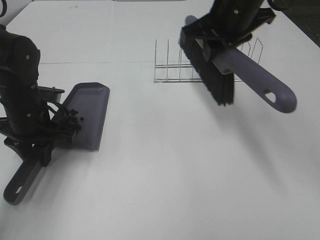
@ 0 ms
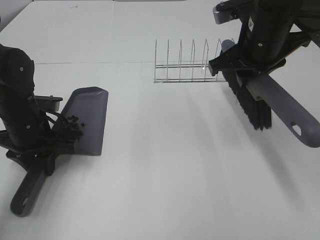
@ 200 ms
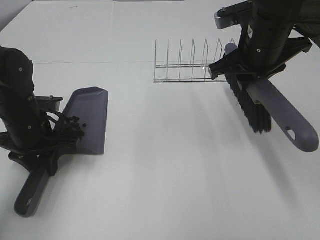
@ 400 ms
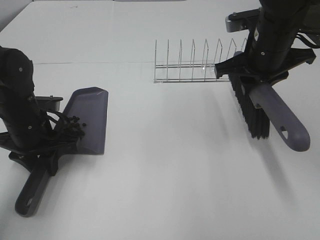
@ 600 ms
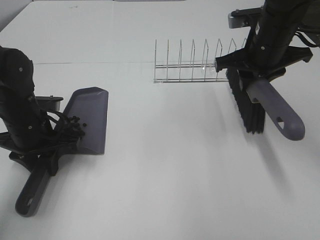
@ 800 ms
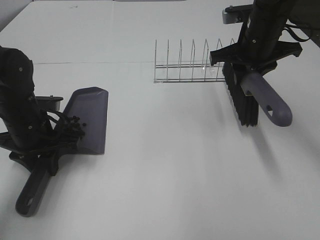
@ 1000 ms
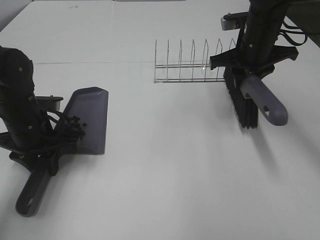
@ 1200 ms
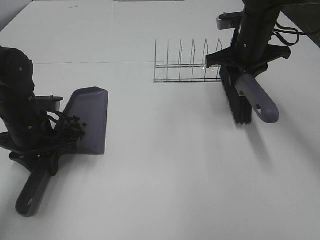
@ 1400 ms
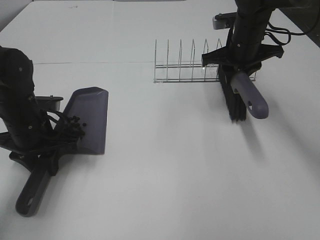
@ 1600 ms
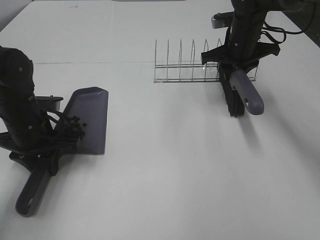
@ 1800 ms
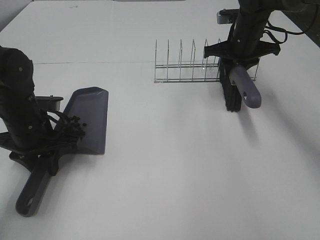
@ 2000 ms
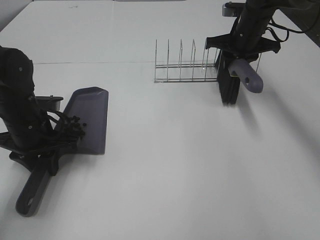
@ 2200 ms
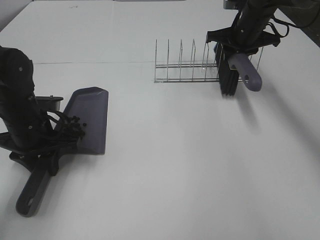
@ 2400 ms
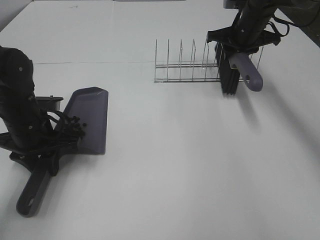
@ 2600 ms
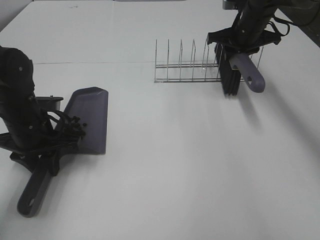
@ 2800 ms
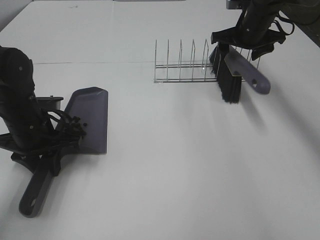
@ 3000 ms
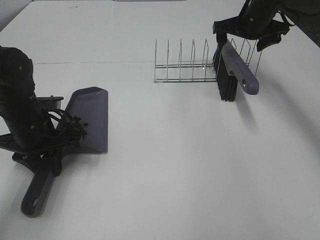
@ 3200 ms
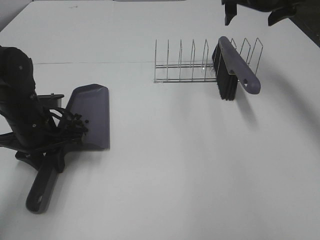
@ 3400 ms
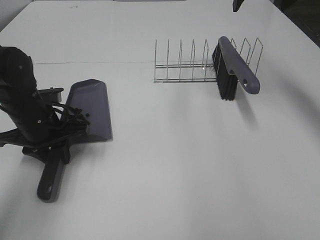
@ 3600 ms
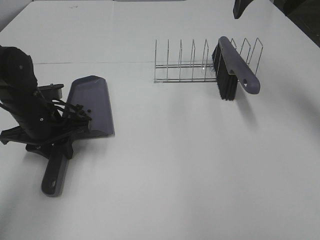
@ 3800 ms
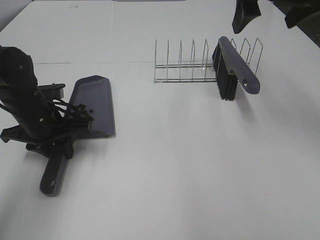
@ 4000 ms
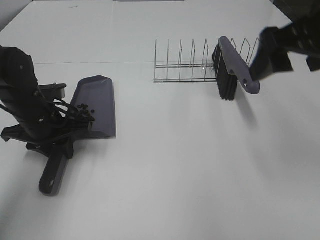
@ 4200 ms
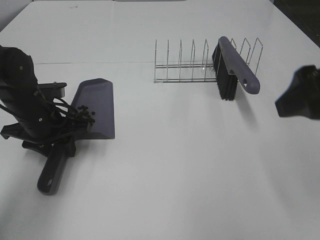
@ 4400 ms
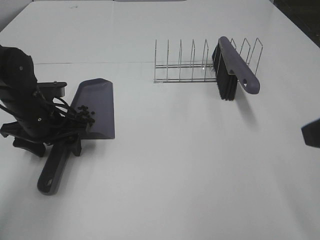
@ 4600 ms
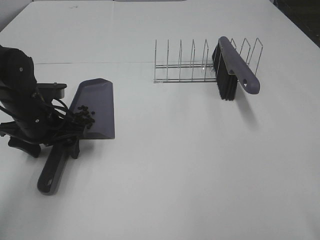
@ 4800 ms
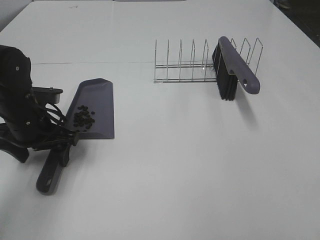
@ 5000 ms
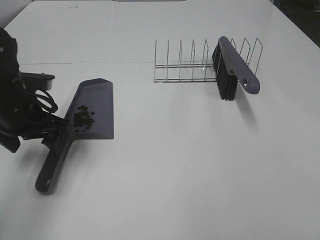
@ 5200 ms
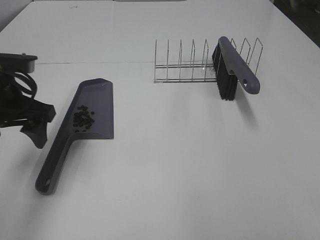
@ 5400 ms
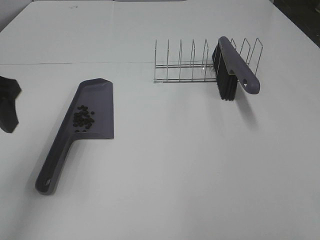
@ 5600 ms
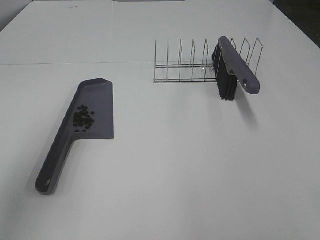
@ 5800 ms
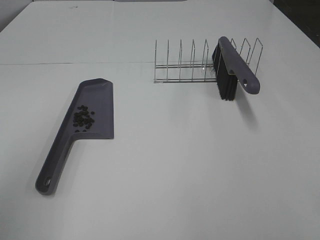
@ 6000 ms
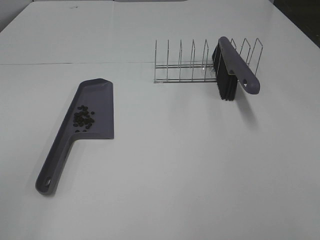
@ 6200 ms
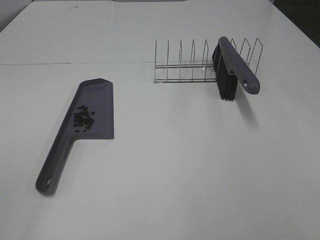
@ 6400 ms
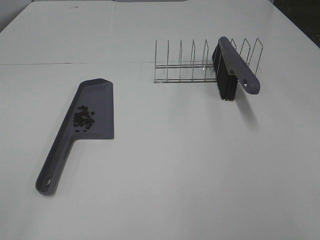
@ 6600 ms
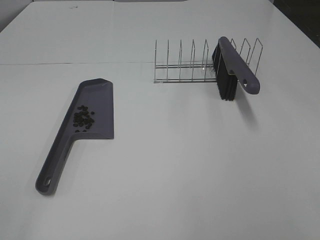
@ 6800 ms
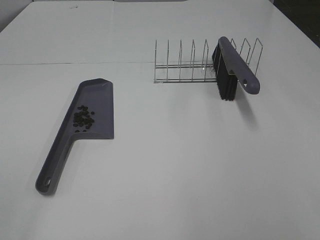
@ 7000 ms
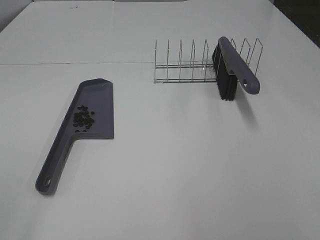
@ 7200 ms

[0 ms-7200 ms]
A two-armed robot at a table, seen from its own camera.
Task of the whole recording: Sweep Coffee Bean.
Step, 0 ms to 2800 ms: Right hand:place the broom on the rack.
0 ms to 1400 ms: The right gripper shifts about 10 cm downward, forward and to the right.
1400 ms to 2800 ms: The right gripper is displaced forward by roughly 10 cm.
2800 ms to 4400 ms: The right gripper travels backward by about 35 cm, and opens up.
4400 ms to 5800 ms: The right gripper shifts about 20 cm backward. The left gripper is displaced upward and backward by roughly 25 cm, and opens its fingers.
5800 ms to 7200 ms: The left gripper is displaced backward by some 20 cm.
